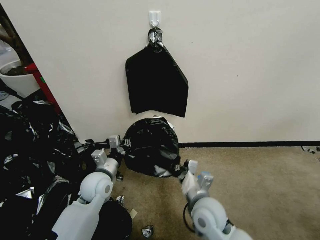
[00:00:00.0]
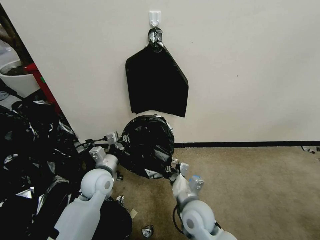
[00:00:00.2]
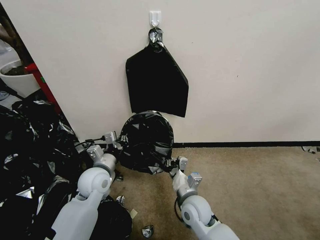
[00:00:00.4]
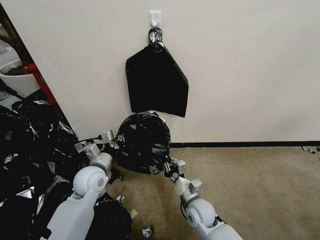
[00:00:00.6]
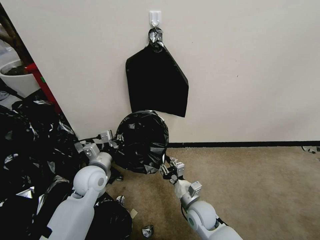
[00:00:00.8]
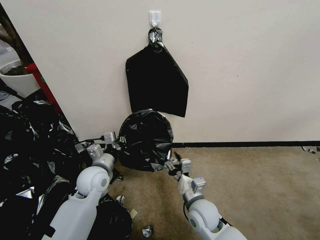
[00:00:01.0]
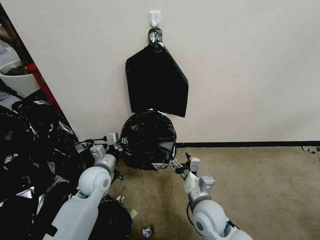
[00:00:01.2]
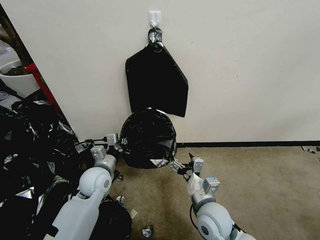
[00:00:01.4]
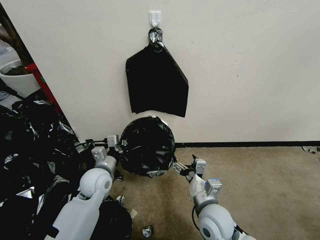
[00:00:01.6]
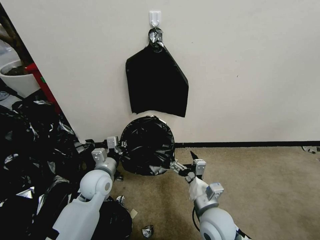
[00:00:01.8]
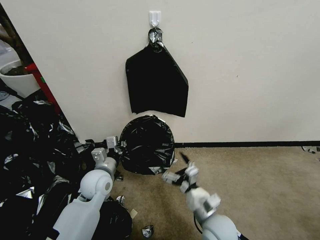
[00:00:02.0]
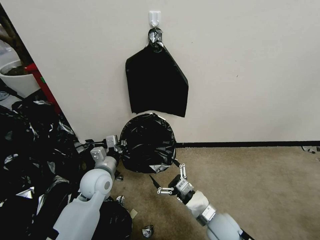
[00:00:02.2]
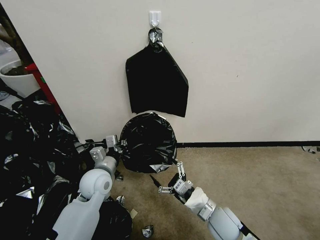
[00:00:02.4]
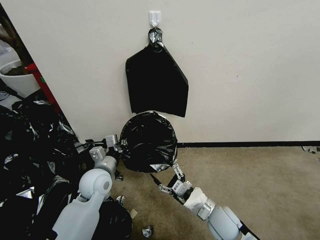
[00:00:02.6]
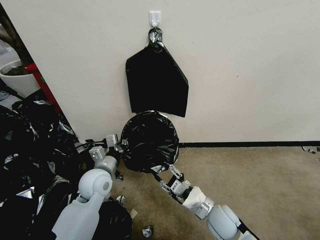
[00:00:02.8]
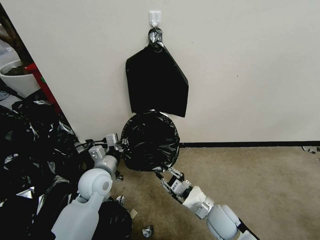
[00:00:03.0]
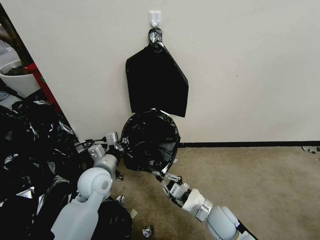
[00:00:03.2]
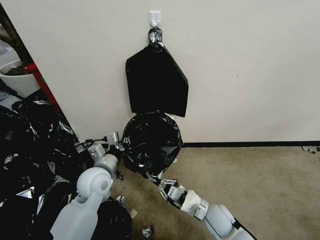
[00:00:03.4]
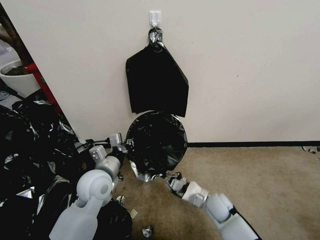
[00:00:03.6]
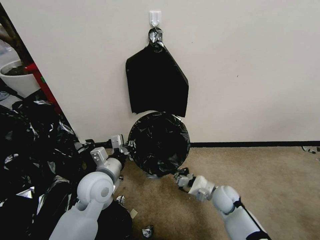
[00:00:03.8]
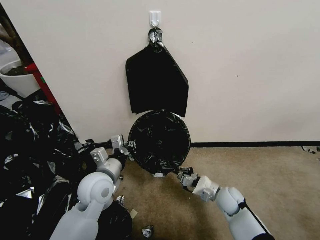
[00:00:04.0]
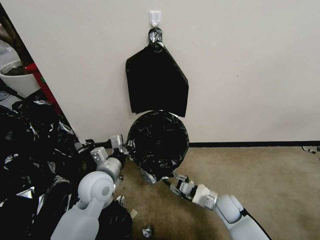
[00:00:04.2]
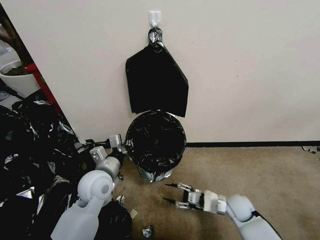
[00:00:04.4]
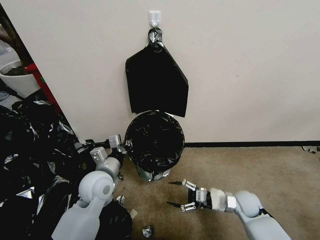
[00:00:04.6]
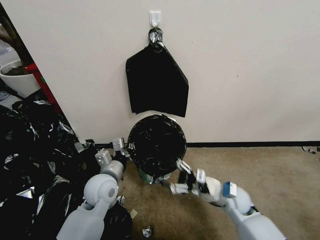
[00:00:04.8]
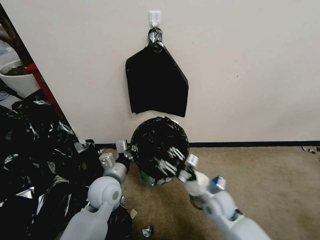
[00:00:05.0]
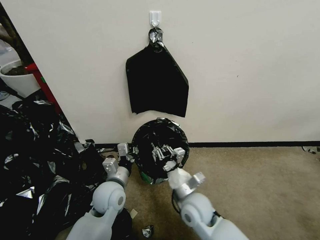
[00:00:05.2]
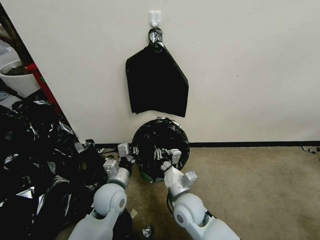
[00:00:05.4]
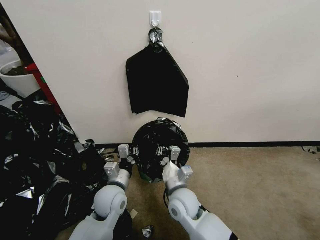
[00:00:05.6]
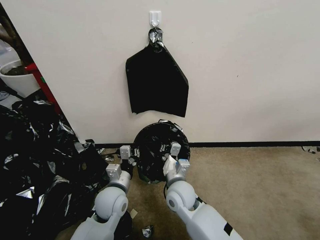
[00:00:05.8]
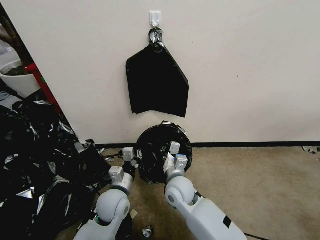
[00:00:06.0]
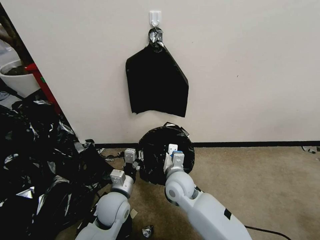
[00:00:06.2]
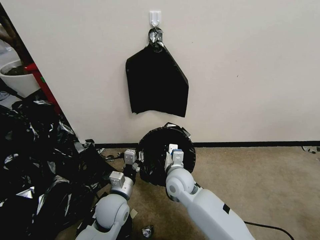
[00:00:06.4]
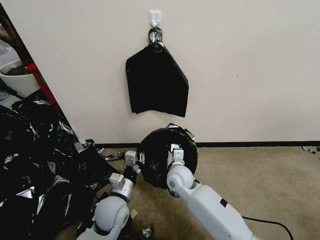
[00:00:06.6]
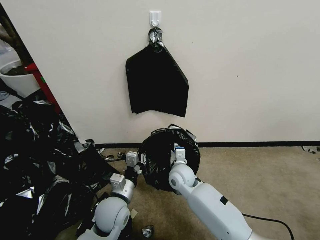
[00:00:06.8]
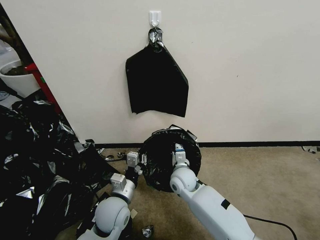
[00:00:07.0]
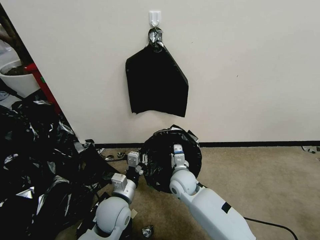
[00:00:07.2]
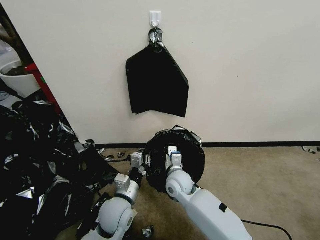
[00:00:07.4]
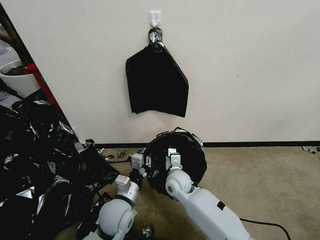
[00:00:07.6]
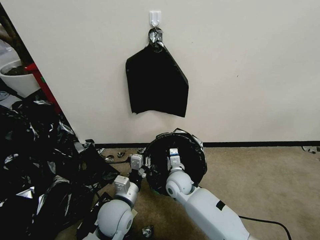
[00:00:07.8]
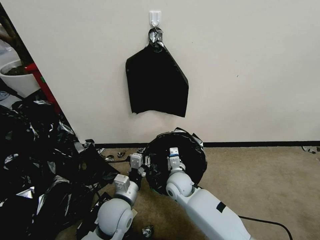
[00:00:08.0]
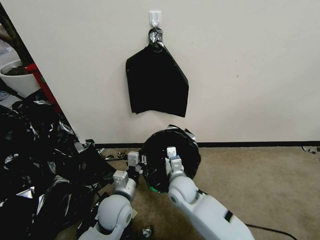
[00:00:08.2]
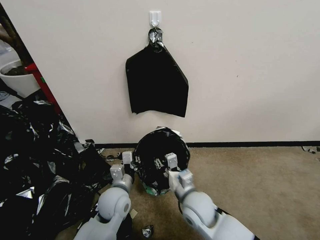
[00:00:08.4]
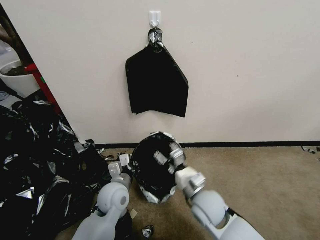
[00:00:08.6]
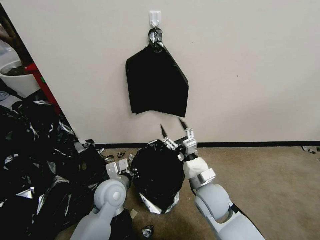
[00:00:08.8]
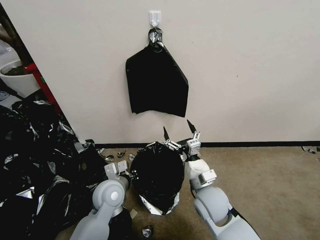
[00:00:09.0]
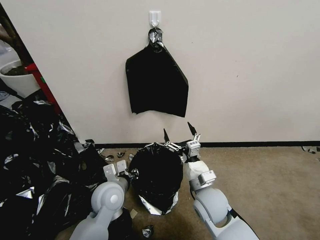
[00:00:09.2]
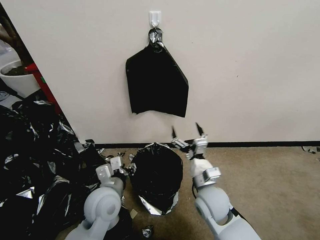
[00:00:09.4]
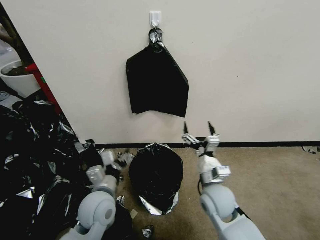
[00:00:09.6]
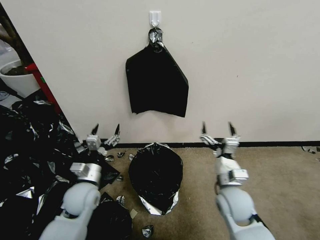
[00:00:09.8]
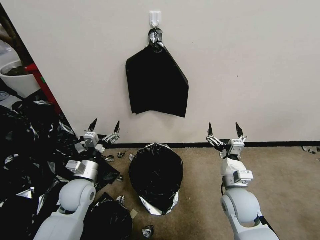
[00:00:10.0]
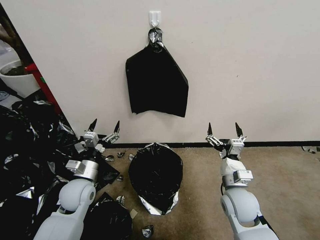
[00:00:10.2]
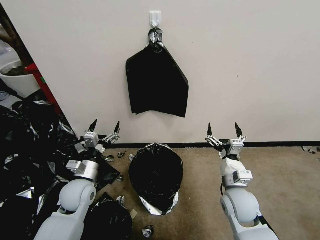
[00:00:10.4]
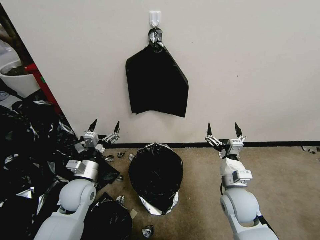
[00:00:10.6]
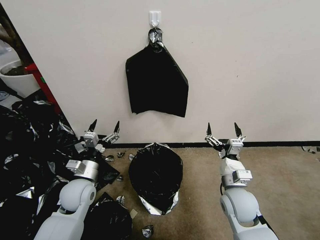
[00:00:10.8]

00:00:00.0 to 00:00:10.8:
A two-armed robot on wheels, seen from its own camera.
Task of the whole recording: Place a trash bag onto the trash bin.
00:00:00.0 to 00:00:01.6: The right gripper goes downward and returns, roughly 10 cm each way, and opens up.
00:00:01.6 to 00:00:03.0: The right gripper heads downward, covering some 5 cm, and closes.
00:00:03.0 to 00:00:04.6: The right gripper heads to the right and forward, covering about 15 cm, and opens.
00:00:04.6 to 00:00:06.2: The left gripper moves downward, about 5 cm, while the right gripper travels to the left and upward by some 30 cm, and closes.
00:00:06.2 to 00:00:07.8: The right gripper shifts roughly 5 cm downward.
00:00:07.8 to 00:00:09.2: The left gripper changes place by approximately 5 cm. Meanwhile the right gripper moves backward, to the right and upward, some 15 cm, and opens its fingers.
00:00:09.2 to 00:00:10.8: The left gripper shifts roughly 10 cm to the left, and opens; the right gripper goes approximately 10 cm to the right.

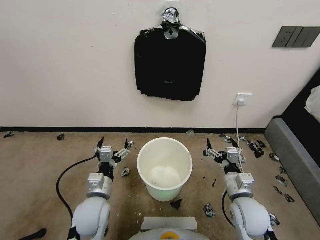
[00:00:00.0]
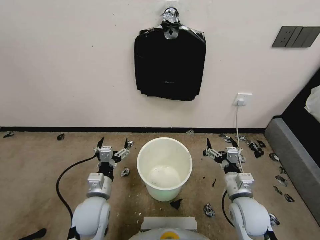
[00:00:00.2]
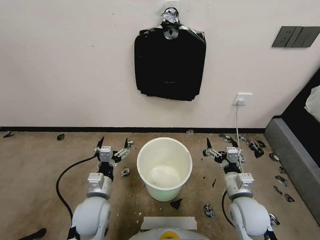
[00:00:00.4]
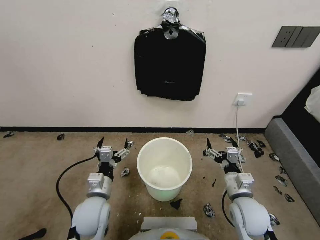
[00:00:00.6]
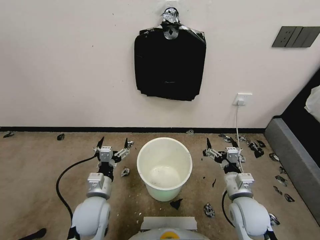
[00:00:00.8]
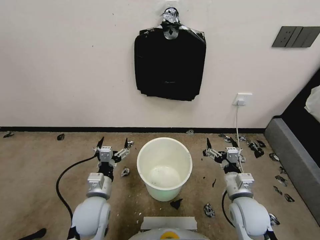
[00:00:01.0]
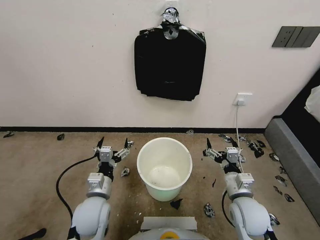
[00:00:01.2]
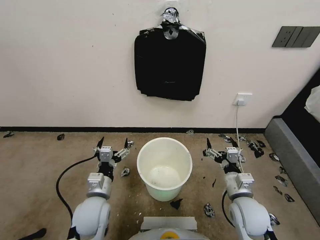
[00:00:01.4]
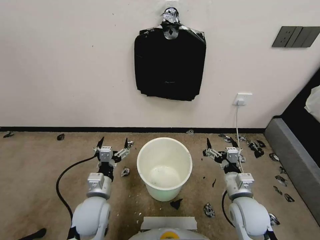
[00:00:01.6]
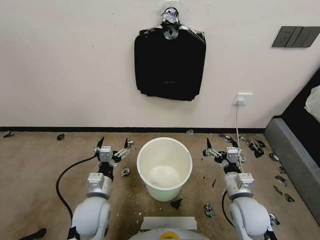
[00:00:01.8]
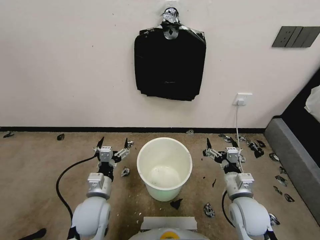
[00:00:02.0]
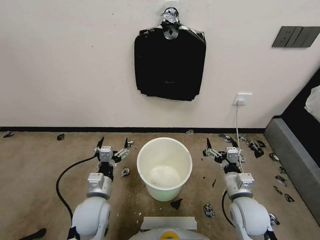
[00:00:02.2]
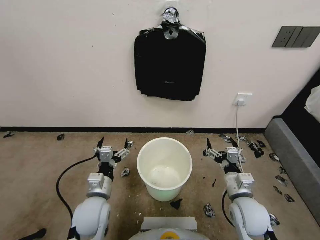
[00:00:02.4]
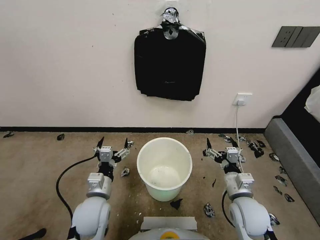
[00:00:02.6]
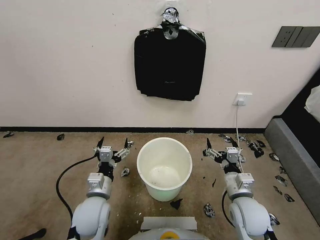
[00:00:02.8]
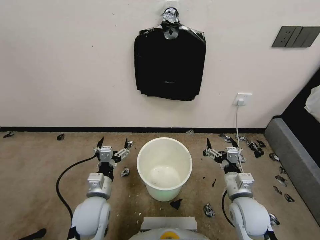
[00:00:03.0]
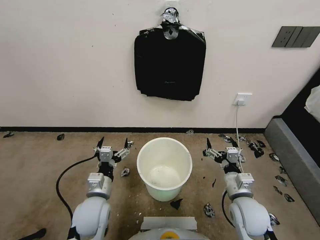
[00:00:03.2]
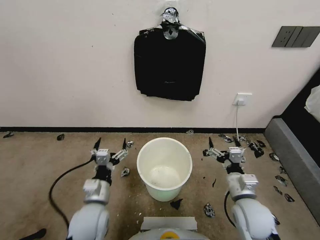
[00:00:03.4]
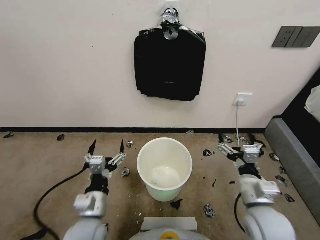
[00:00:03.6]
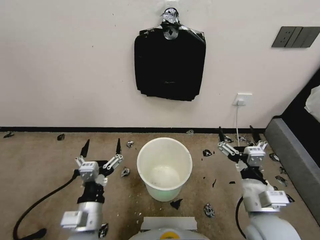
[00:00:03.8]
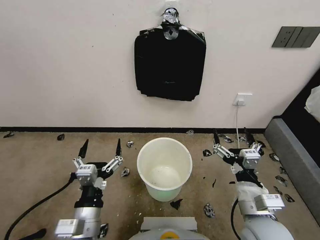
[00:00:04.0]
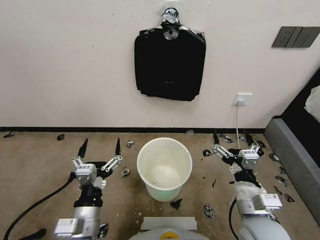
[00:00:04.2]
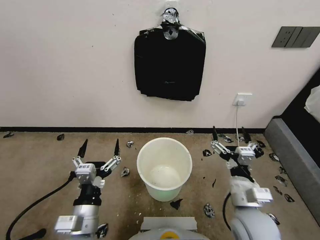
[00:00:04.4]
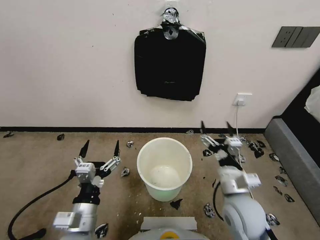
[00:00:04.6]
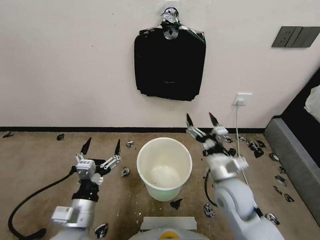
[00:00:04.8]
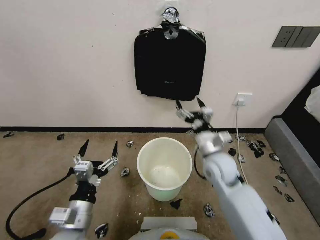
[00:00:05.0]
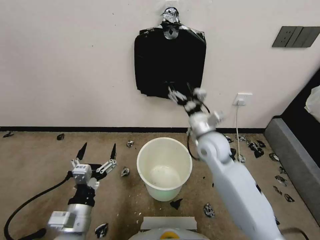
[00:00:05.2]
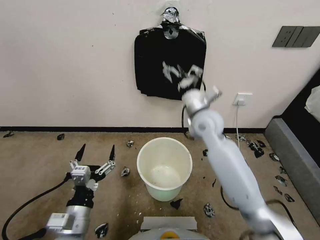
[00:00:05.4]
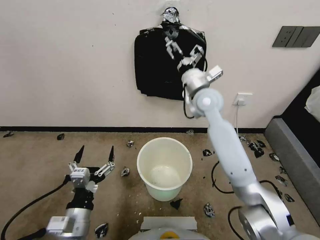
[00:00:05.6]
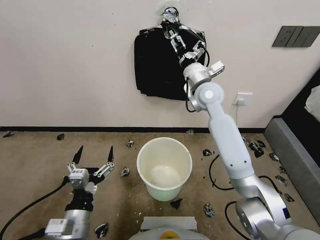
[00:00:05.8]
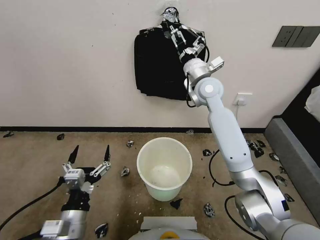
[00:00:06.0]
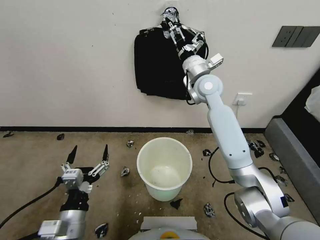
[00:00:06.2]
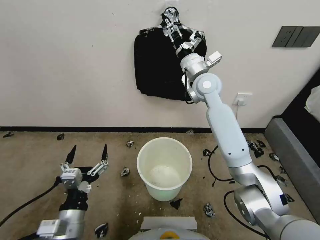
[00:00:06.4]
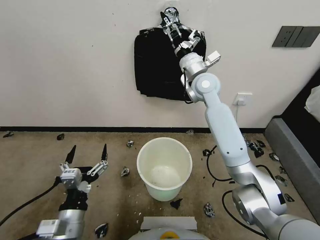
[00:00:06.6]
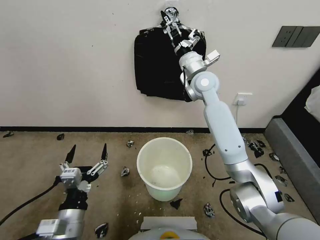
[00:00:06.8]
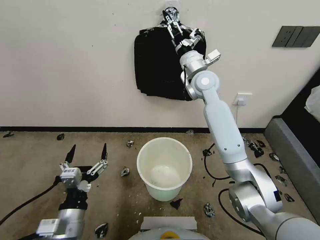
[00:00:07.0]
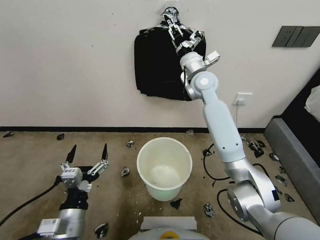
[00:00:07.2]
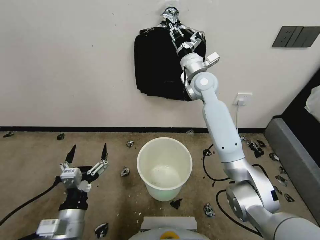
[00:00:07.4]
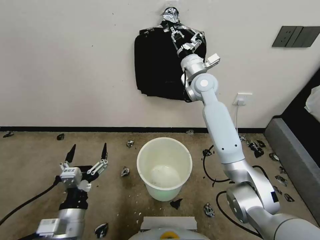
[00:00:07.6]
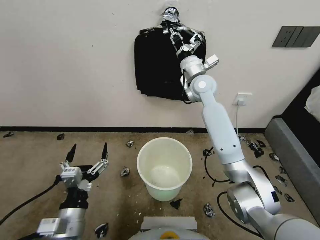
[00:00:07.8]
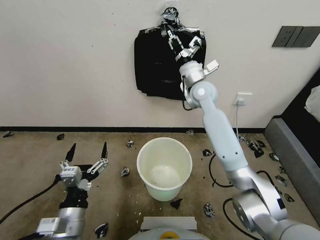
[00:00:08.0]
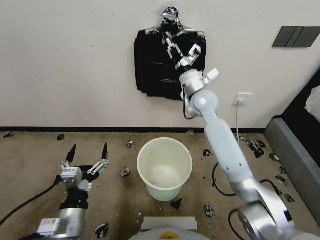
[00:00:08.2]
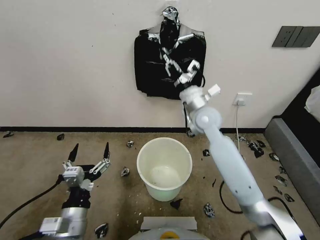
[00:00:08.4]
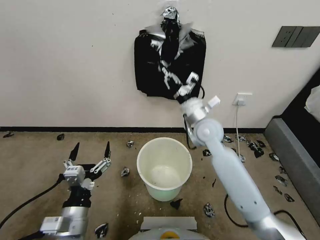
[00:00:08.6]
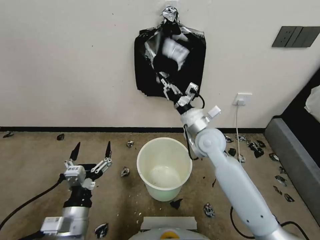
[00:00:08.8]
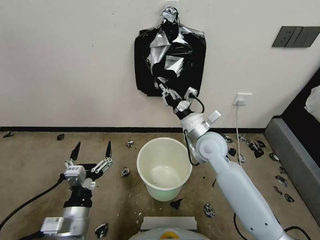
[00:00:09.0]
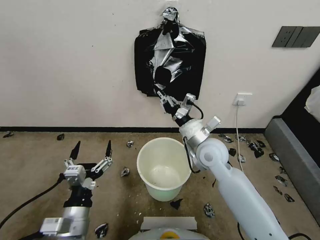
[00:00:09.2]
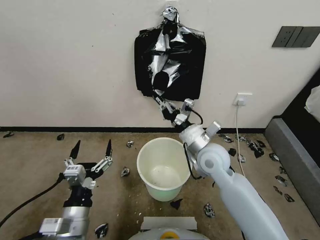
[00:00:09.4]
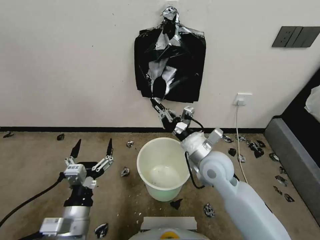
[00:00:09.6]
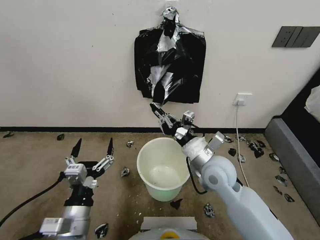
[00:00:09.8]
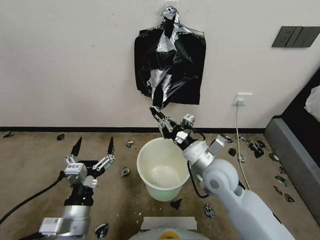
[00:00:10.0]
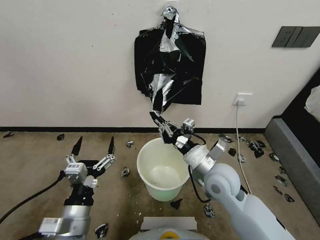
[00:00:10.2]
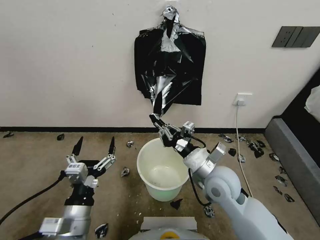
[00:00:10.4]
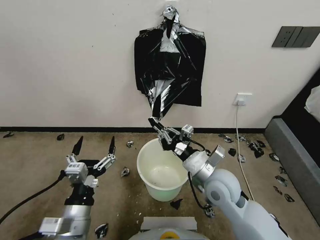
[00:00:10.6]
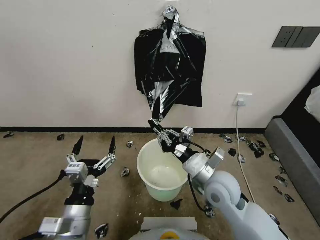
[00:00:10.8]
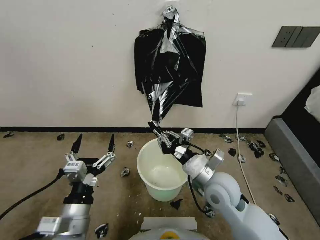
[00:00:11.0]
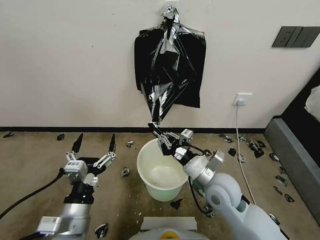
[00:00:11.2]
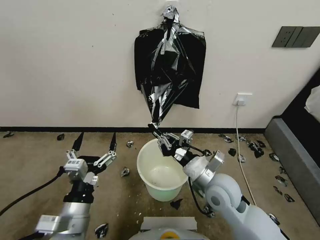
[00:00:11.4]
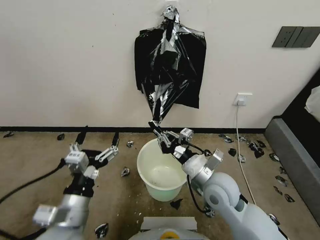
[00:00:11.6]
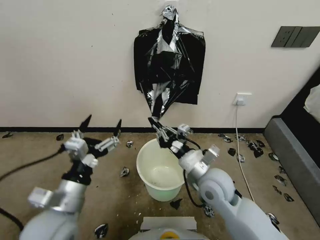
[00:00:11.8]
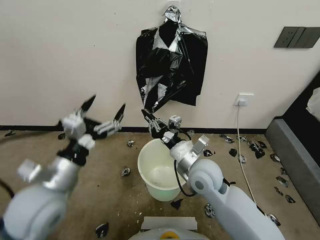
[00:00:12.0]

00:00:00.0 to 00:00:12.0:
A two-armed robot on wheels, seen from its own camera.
Task of the whole recording: Place a trash bag onto the trash bin.
00:00:01.6 to 00:00:03.0: The two grippers keep their place.
00:00:03.0 to 00:00:04.4: The left gripper travels backward and upward by approximately 10 cm. The right gripper moves upward, approximately 5 cm.
00:00:04.4 to 00:00:06.0: The right gripper heads forward and upward, covering some 40 cm.
00:00:06.0 to 00:00:07.6: The right gripper closes its fingers.
00:00:07.6 to 00:00:09.0: The right gripper moves backward and downward, approximately 20 cm.
00:00:09.0 to 00:00:10.4: The right gripper travels backward by about 10 cm.
00:00:10.4 to 00:00:12.0: The left gripper shifts some 15 cm upward and forward.
